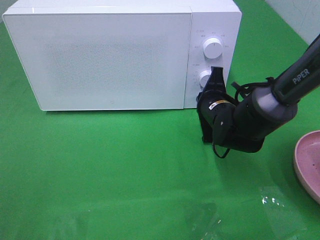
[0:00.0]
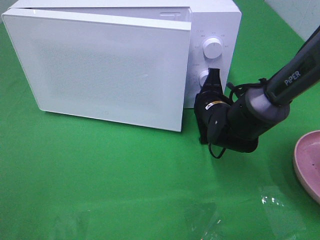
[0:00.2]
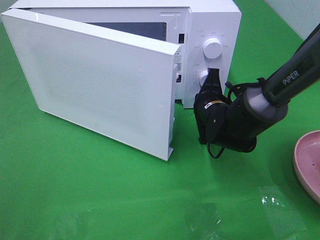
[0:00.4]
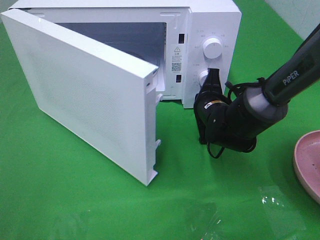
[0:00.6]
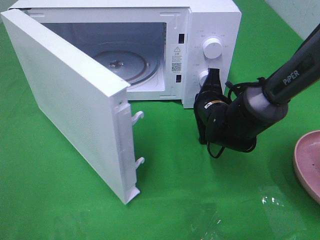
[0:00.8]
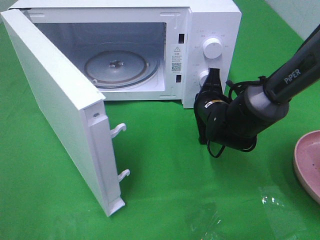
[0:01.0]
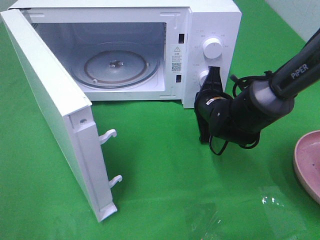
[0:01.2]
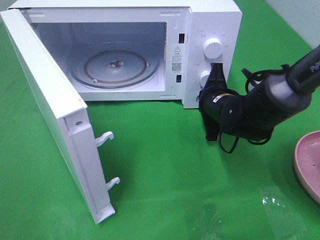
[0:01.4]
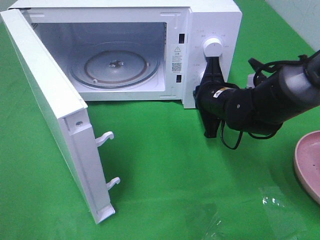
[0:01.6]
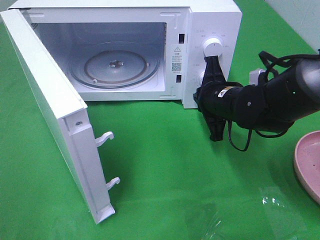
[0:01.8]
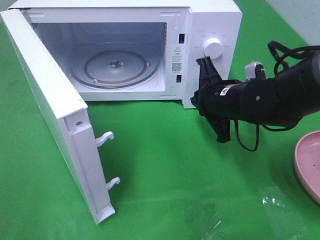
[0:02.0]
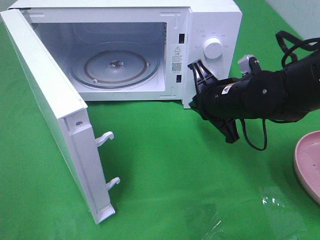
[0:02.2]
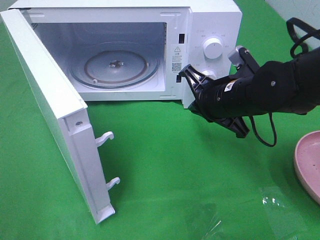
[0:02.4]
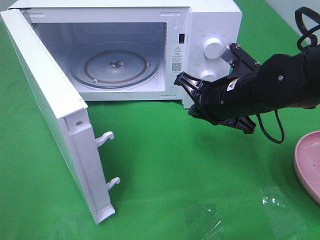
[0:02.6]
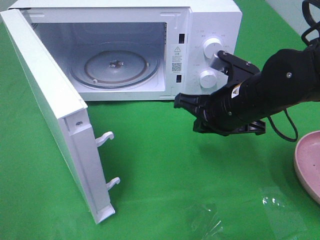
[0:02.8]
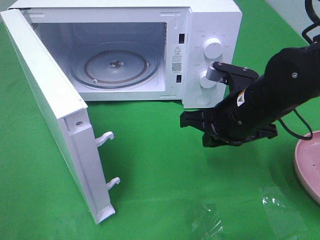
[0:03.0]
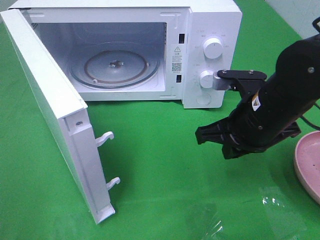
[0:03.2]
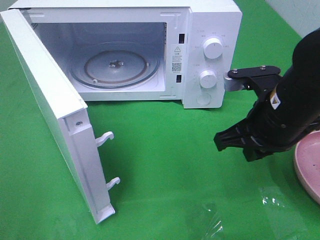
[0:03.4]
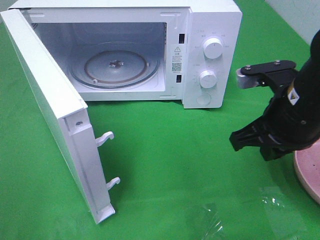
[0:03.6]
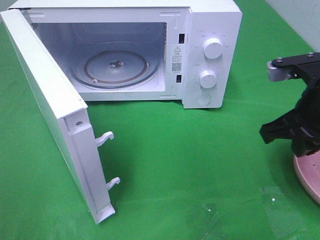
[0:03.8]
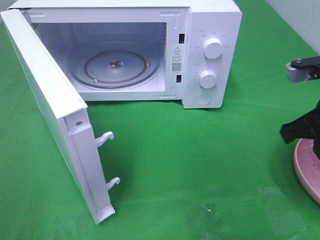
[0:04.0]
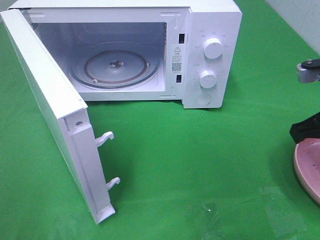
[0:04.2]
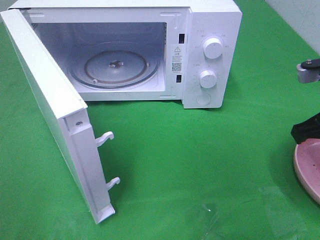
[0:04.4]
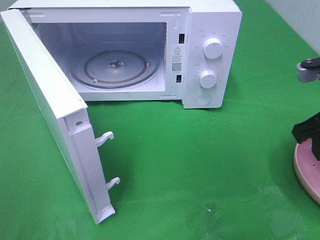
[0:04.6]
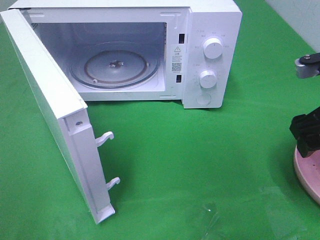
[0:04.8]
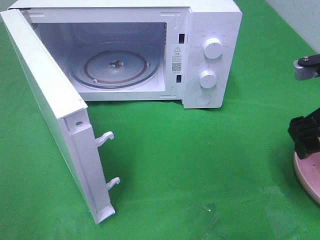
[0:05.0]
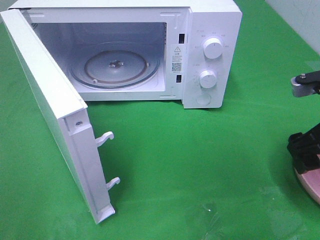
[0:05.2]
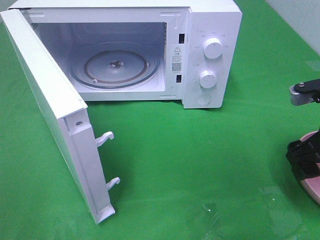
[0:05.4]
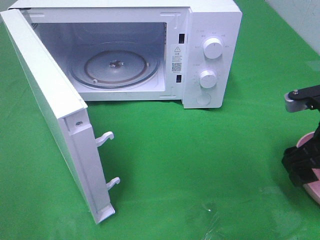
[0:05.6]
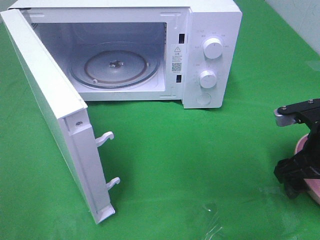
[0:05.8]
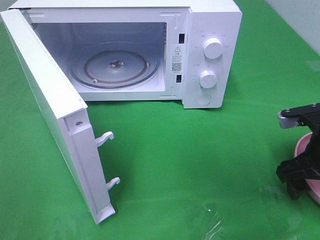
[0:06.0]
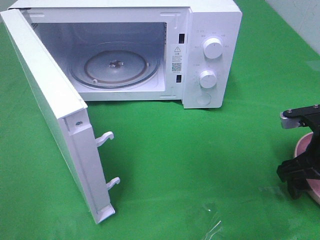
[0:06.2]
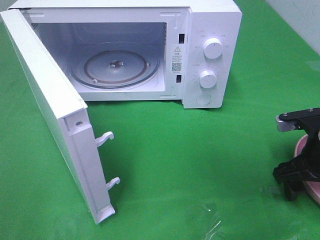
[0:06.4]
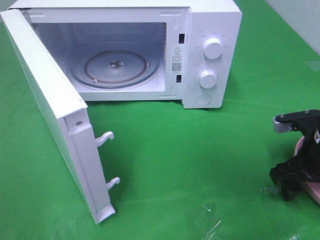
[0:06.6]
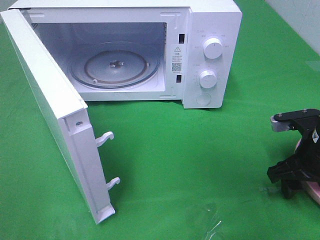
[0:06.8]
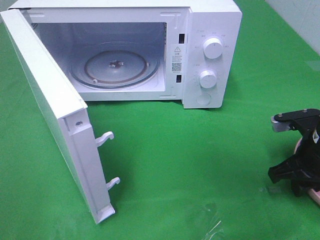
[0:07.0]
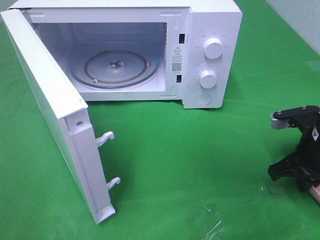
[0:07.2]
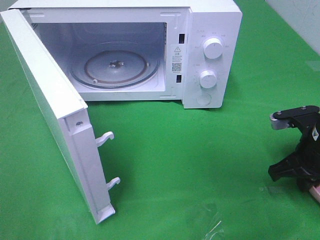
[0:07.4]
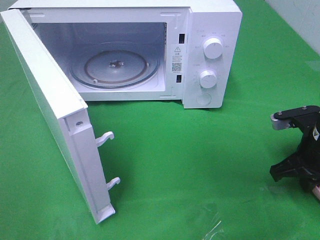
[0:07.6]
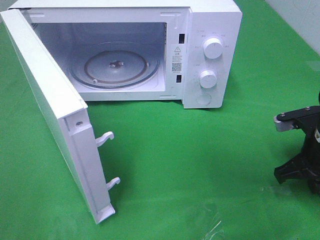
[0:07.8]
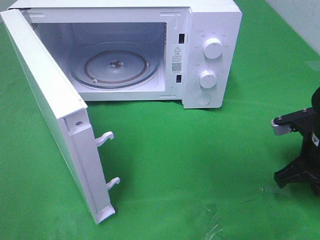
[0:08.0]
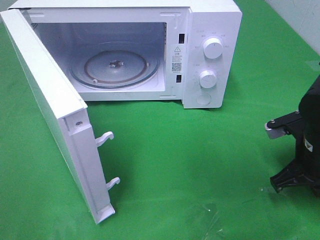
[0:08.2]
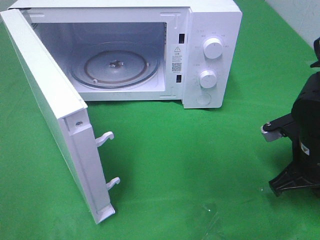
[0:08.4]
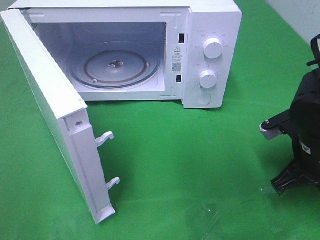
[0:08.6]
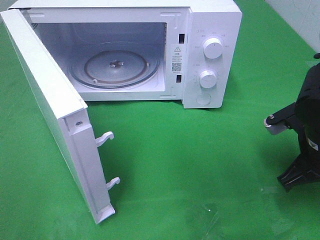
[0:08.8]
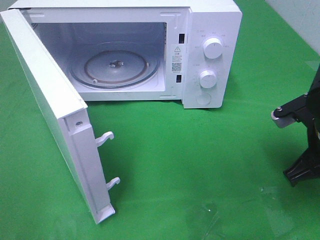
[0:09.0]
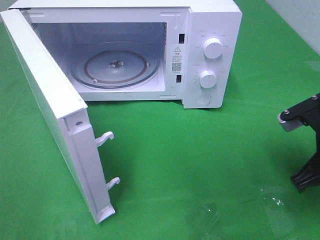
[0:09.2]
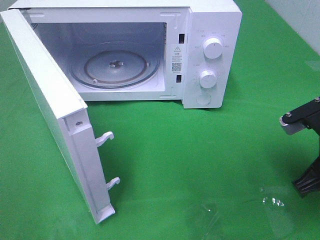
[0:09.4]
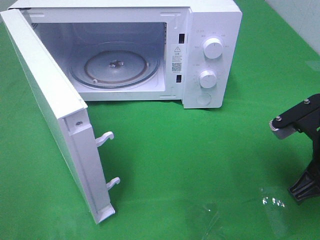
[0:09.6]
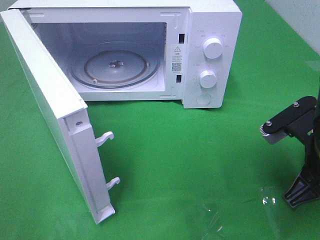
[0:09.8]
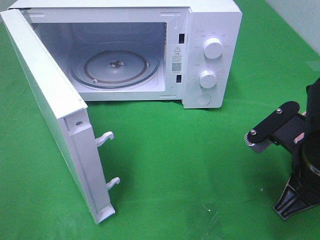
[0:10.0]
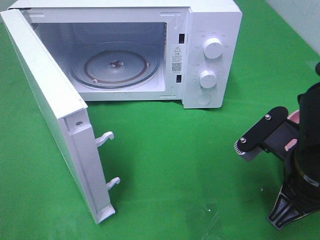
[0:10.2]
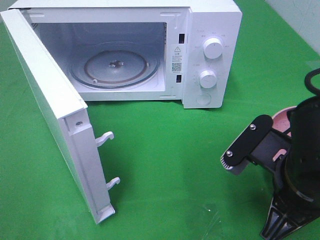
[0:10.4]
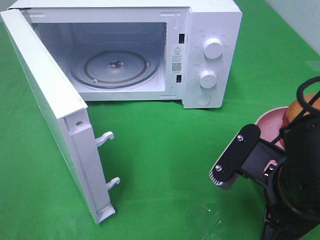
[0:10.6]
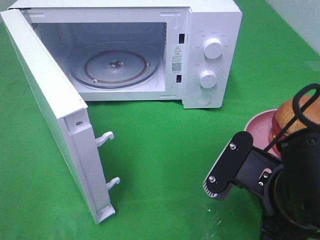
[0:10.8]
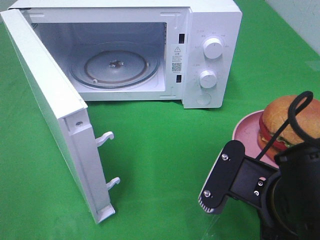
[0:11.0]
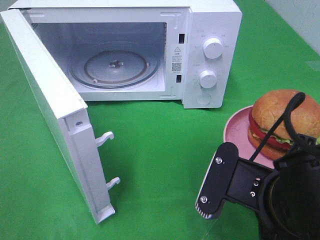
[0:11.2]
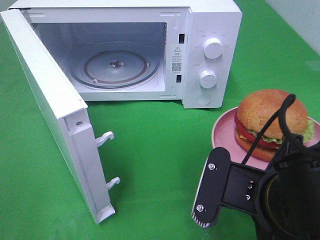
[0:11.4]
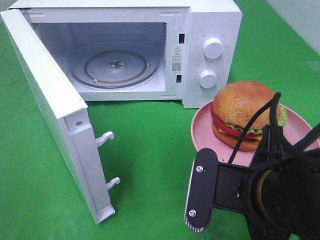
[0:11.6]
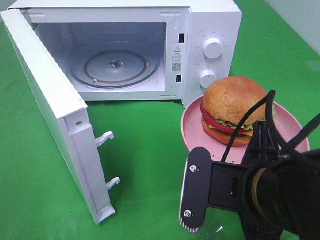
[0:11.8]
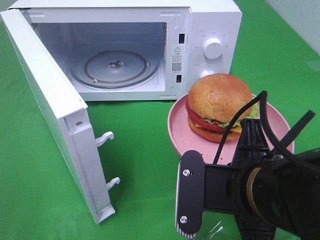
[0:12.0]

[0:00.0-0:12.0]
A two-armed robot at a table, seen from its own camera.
Task of the whole recording: Heat the burger.
Step, 0:01.8 to 0:09.0: Right hand: grab the plate with the hamburger.
0:01.6 to 0:03.0: The right gripper moves backward, some 10 cm.
0:03.0 to 0:04.4: The right gripper is displaced to the right and upward by roughly 15 cm.
0:04.4 to 0:06.0: The right gripper goes about 10 cm downward, and opens.
0:06.0 to 0:07.6: The right gripper closes its fingers.
0:07.6 to 0:09.0: The right gripper moves some 5 cm.
0:09.0 to 0:10.4: The right gripper travels to the left and backward by roughly 10 cm.
0:10.4 to 0:12.0: The right gripper ends up roughly 5 cm from where it was.

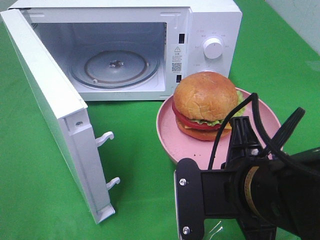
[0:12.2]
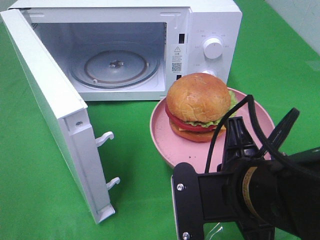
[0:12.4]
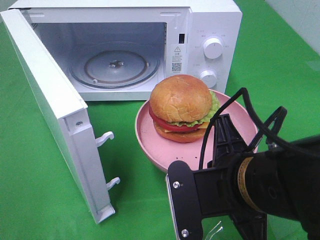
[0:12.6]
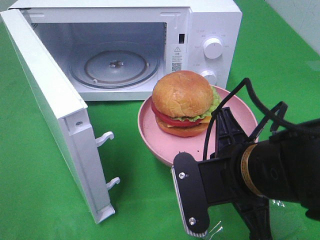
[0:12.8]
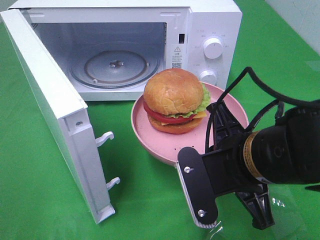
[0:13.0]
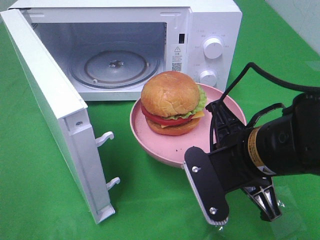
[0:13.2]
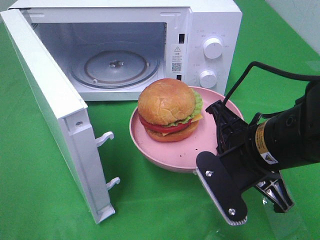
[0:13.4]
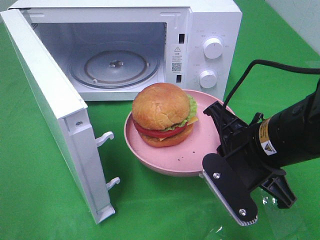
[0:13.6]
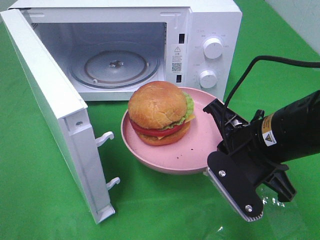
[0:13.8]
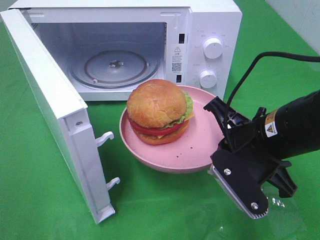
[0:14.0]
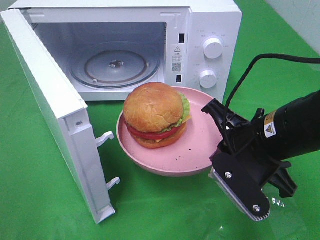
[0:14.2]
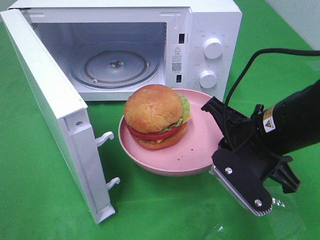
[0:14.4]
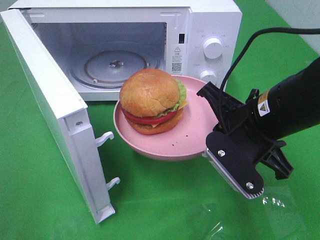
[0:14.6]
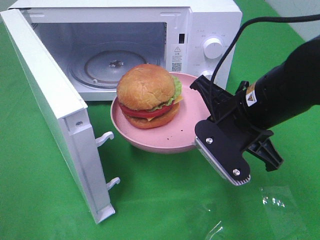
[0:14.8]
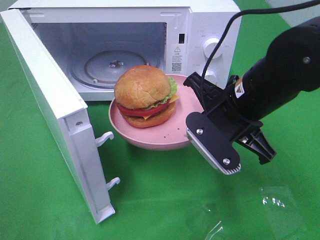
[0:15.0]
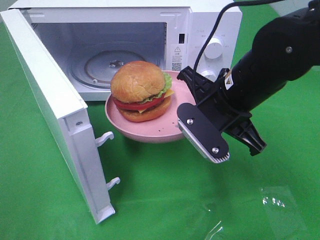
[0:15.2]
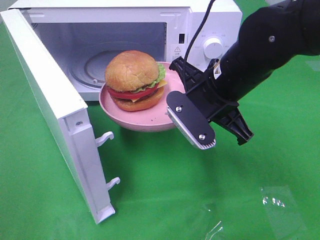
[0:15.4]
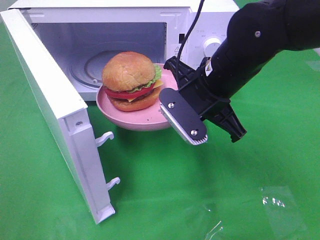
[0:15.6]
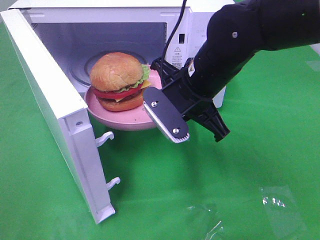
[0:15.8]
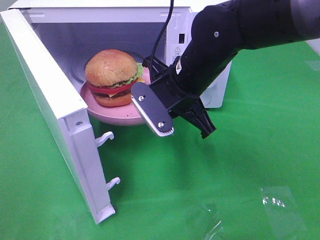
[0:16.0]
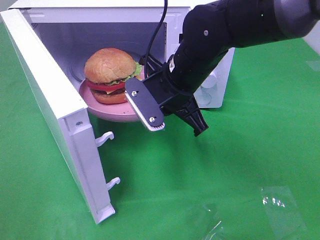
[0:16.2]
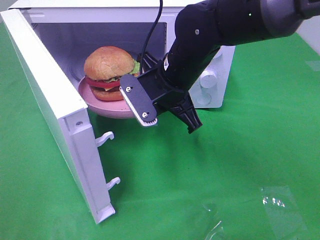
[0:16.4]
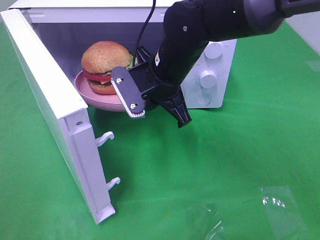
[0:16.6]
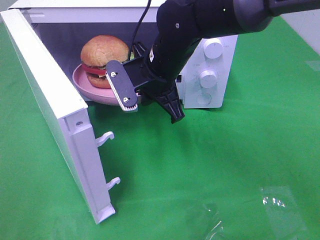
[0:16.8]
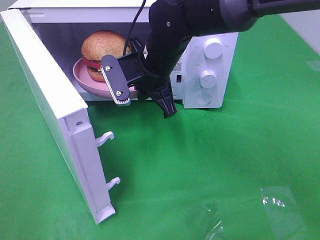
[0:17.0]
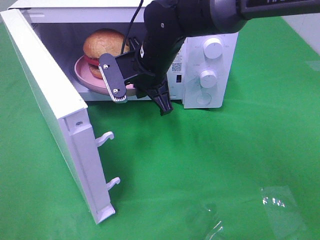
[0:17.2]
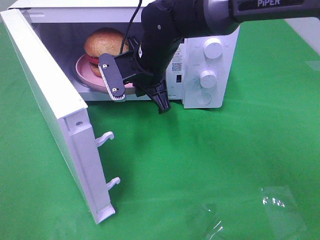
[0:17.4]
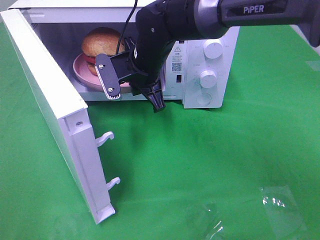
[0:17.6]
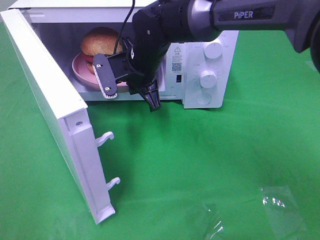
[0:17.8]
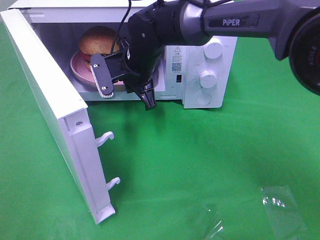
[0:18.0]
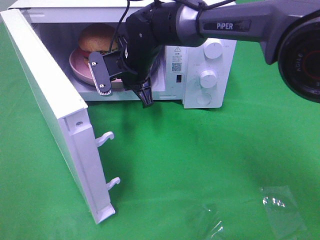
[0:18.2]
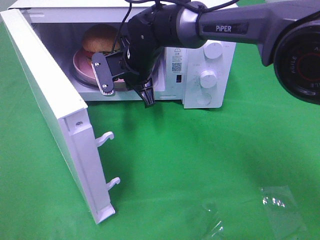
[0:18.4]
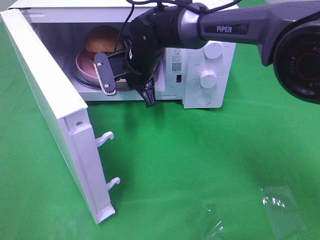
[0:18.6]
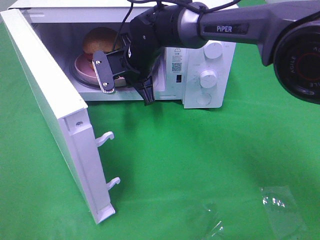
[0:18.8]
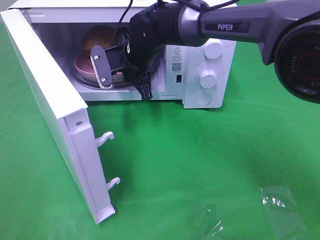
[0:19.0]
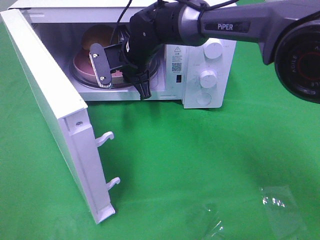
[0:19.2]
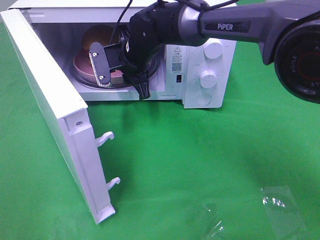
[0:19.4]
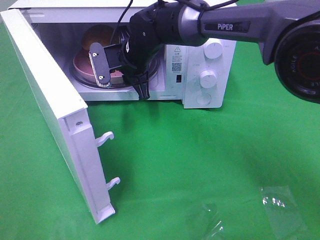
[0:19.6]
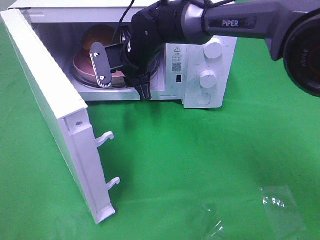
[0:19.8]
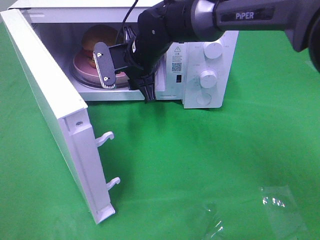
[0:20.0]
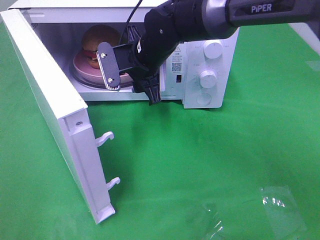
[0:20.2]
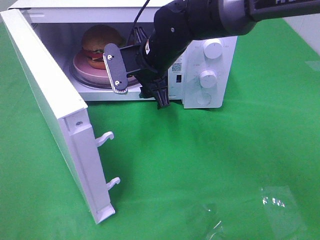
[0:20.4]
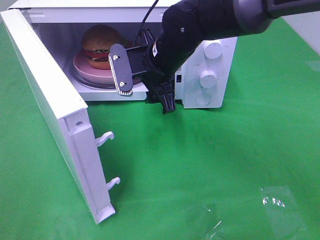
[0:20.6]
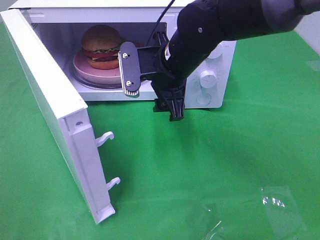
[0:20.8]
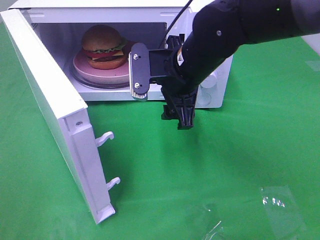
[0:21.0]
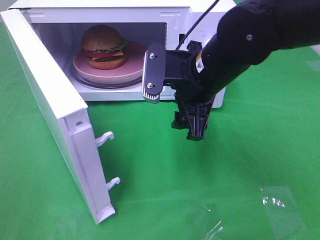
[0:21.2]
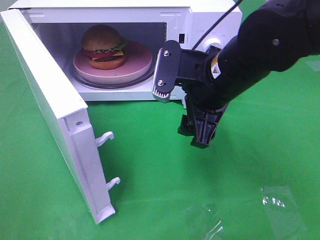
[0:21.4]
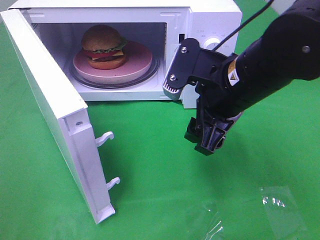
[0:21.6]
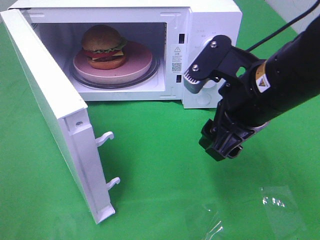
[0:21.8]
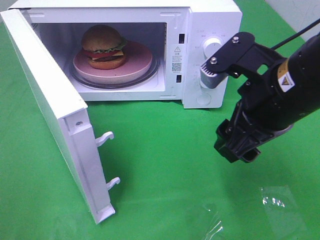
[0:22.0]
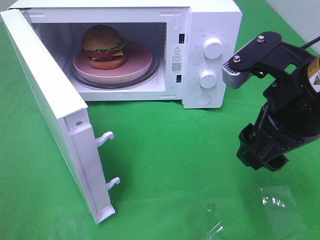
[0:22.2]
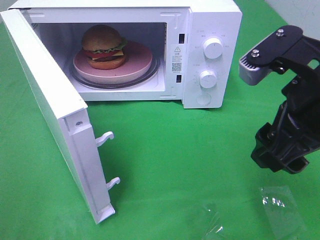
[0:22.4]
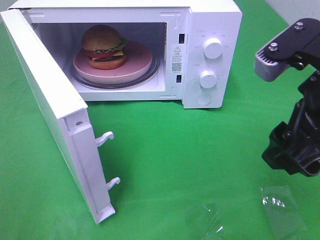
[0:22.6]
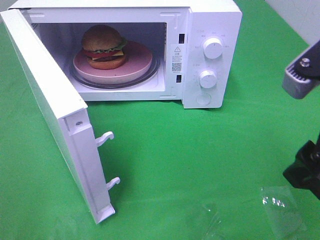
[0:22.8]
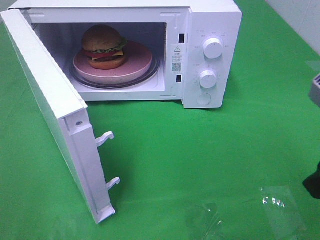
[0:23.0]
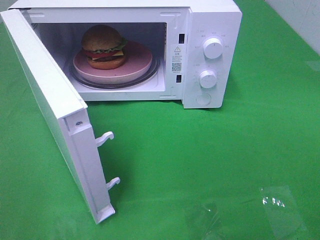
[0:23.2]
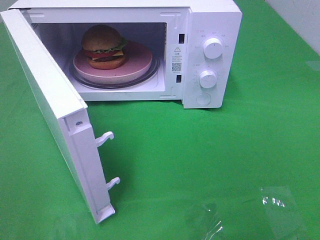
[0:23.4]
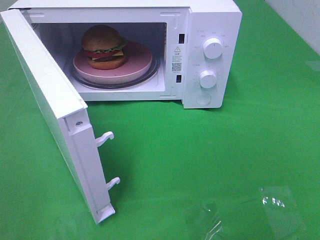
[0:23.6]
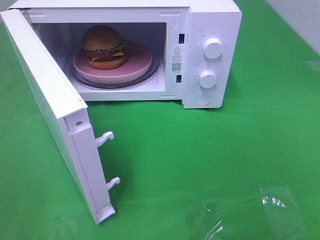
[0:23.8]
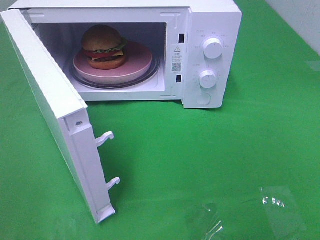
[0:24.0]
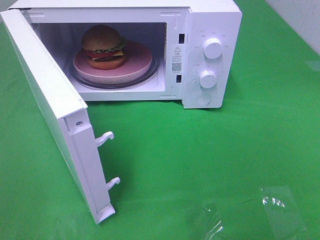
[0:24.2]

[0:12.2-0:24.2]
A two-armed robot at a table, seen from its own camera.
Task of the whole recording: Heat the burger.
Step, 0:12.2 to 0:19.6: Right hand: place the plate in the microwave.
0:12.2 to 0:13.8: The right gripper travels forward by about 10 cm.
0:13.8 to 0:15.2: The right gripper shifts some 5 cm forward.
0:15.2 to 0:16.6: The right gripper moves to the left and forward, about 10 cm.
0:16.6 to 0:18.2: The right gripper moves forward and to the left, approximately 10 cm.
0:18.2 to 0:19.8: The right gripper opens its fingers.
0:19.8 to 0:21.2: The right gripper travels backward and to the right by roughly 15 cm.
0:21.2 to 0:22.6: The right gripper is displaced backward, to the right and upward by approximately 20 cm.
0:22.6 to 0:24.2: The right gripper shifts some 20 cm backward and to the right.
